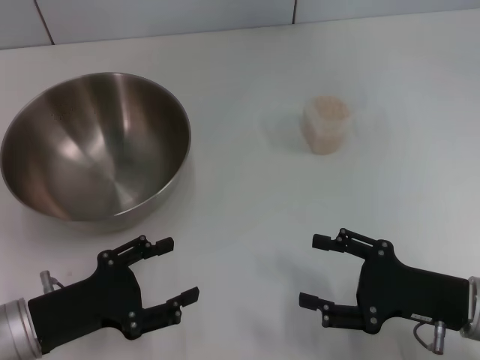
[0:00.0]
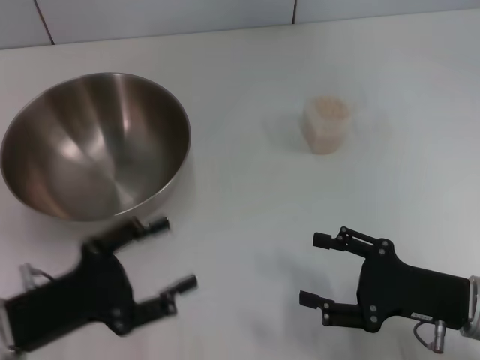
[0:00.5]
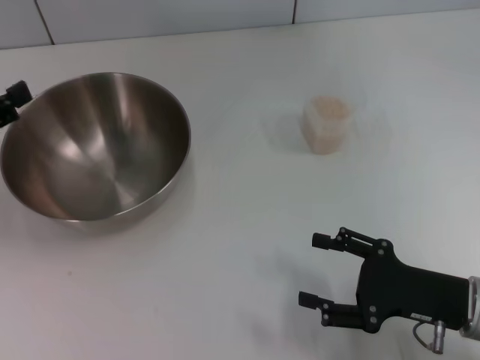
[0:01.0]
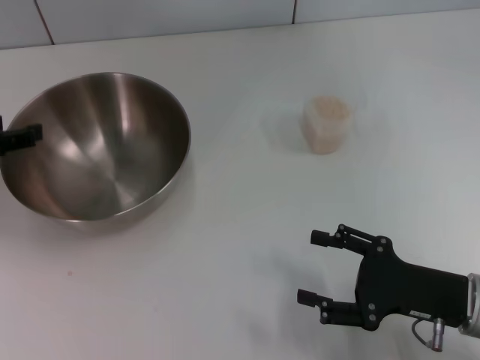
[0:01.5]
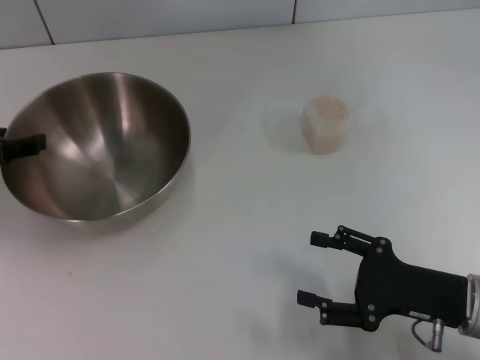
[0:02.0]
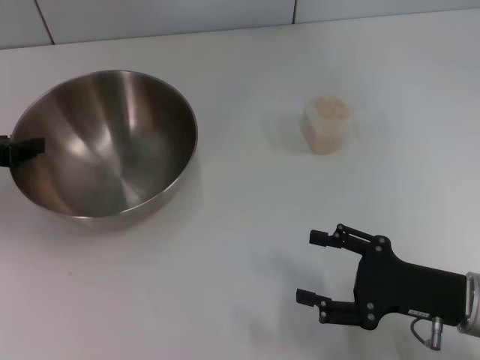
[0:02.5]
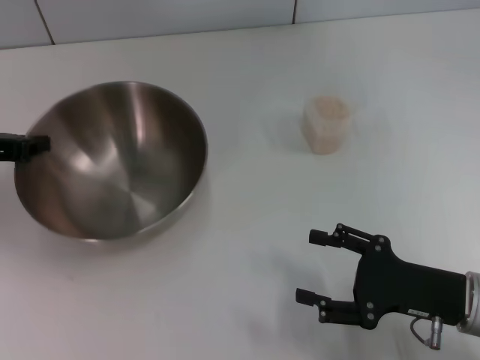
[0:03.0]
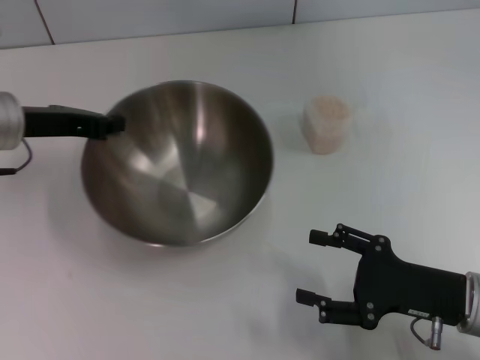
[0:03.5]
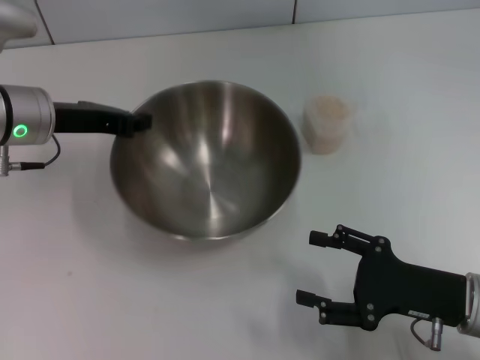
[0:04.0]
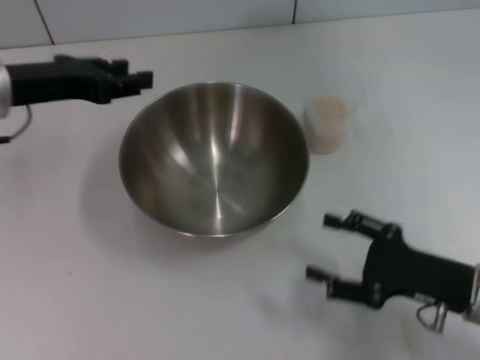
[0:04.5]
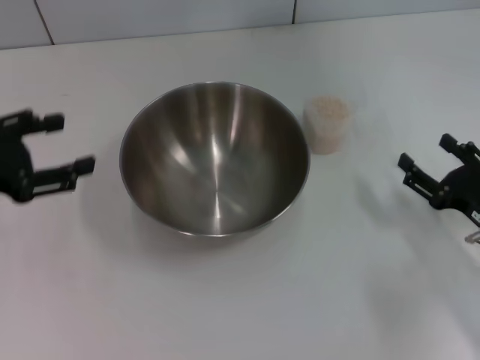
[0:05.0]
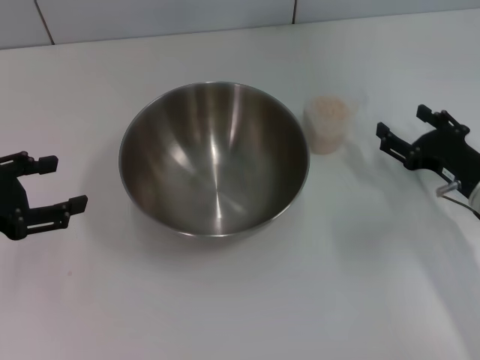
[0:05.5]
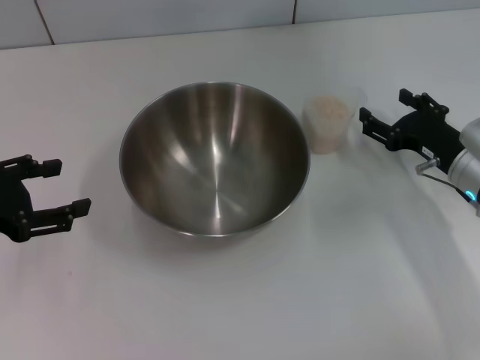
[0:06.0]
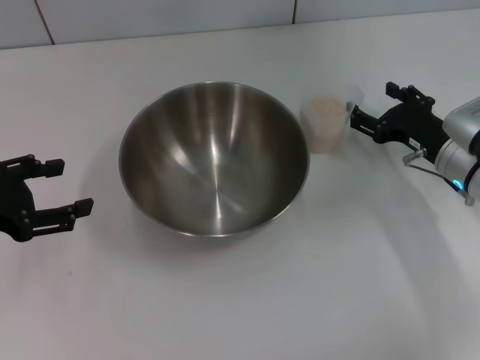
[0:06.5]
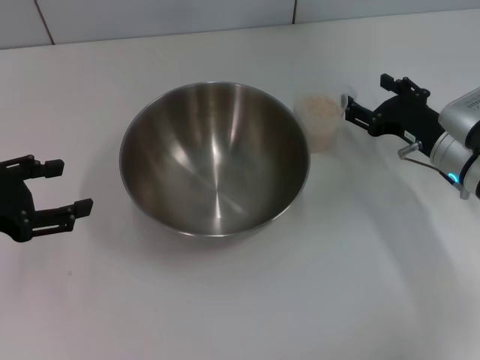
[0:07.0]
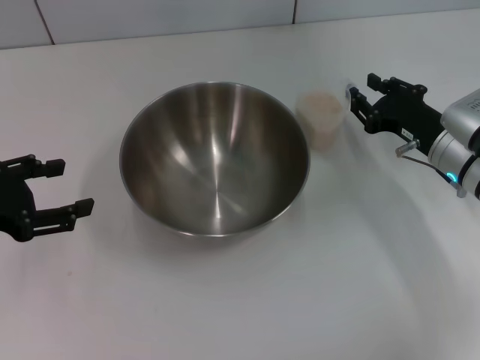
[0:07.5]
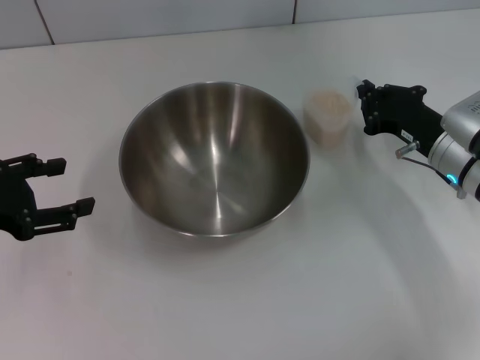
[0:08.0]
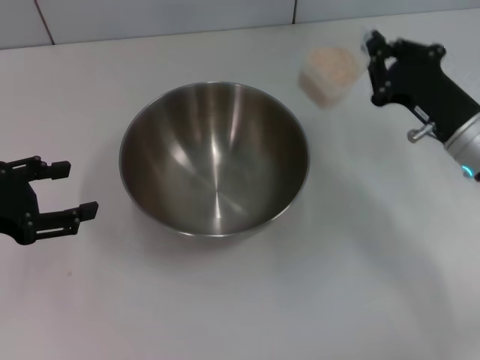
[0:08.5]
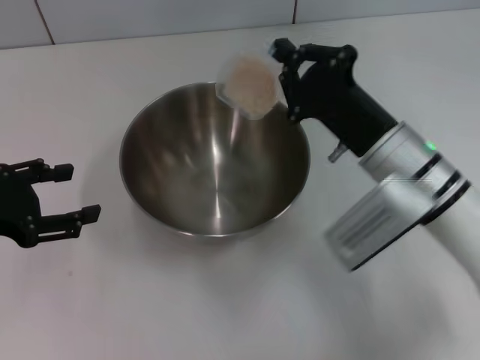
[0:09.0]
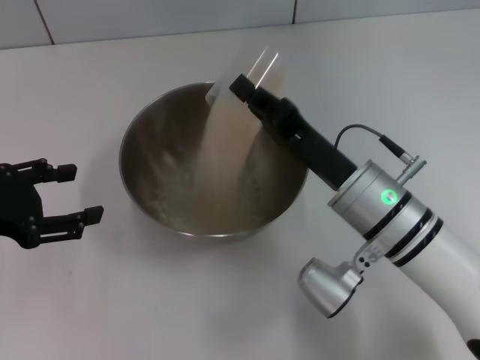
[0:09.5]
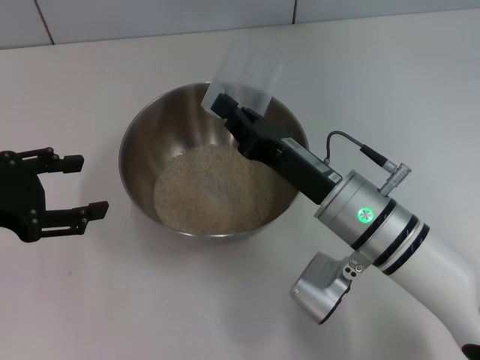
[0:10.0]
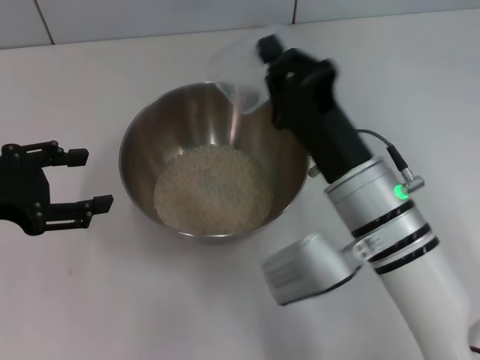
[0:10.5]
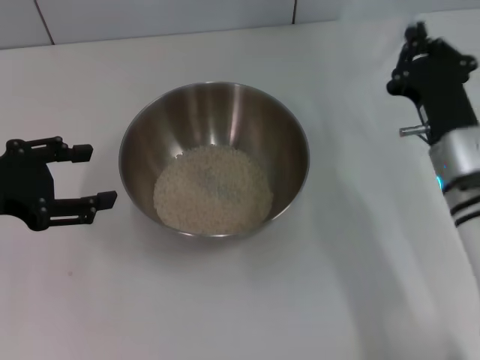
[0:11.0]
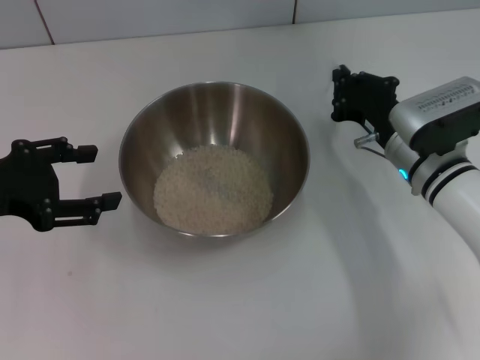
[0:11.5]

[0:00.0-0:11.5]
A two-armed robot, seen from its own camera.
Task of the whole recording: Place the bowl in the middle of the table with one hand and pour the rice from the grain cup into it with the other hand.
Step, 0:00.0 to 0:03.0: Pick up the bowl with the left gripper.
Step, 0:03.5 to 0:04.0: Place the bowl in the center of view with the left gripper.
Step, 0:04.5 to 0:08.0: Pick up the cup with rice in it with the right gripper.
Step, 0:09.0 to 0:10.5: Pour the rice from the cup into the bowl with the right gripper.
0:00.0 to 0:02.0: The left gripper is displaced forward, upward and to the left by some 20 cm.
0:02.0 to 0:04.0: The left gripper goes about 10 cm to the right and forward, and closes up.
0:04.0 to 0:06.0: The left gripper goes roughly 15 cm backward and to the left, and opens its fingers; the right gripper heads forward, covering about 10 cm.
0:06.0 to 0:07.5: The grippers move only a little.
0:07.5 to 0:09.5: The right gripper heads to the left and backward, covering approximately 15 cm, and closes its fingers.
0:09.5 to 0:11.5: The right gripper moves to the right and forward, some 10 cm.

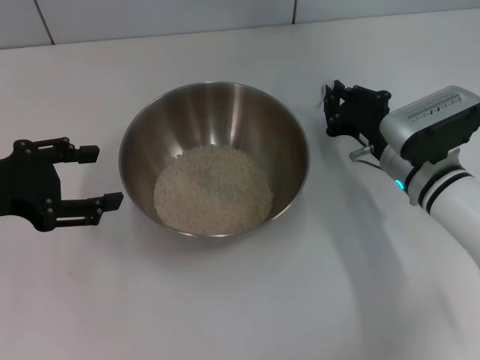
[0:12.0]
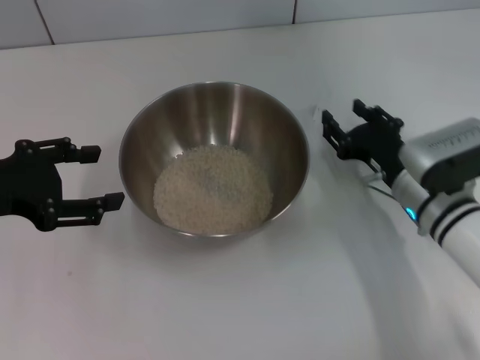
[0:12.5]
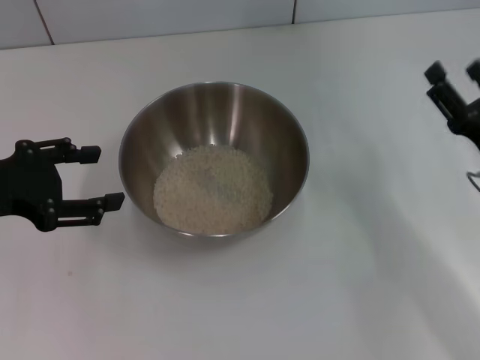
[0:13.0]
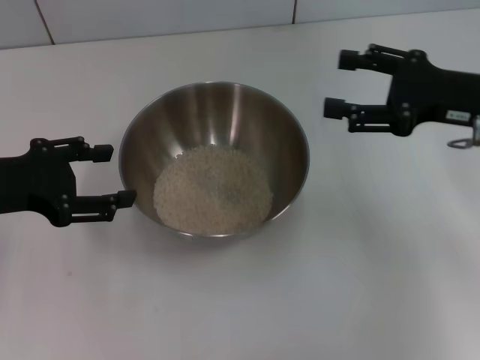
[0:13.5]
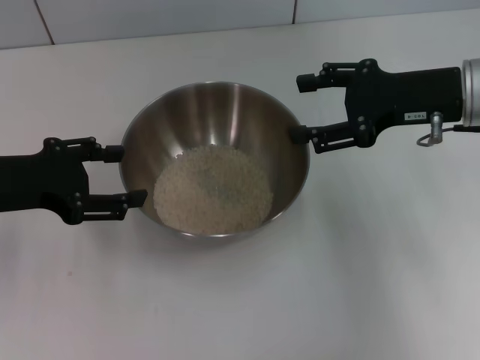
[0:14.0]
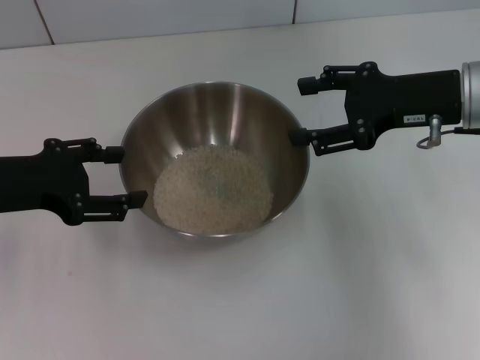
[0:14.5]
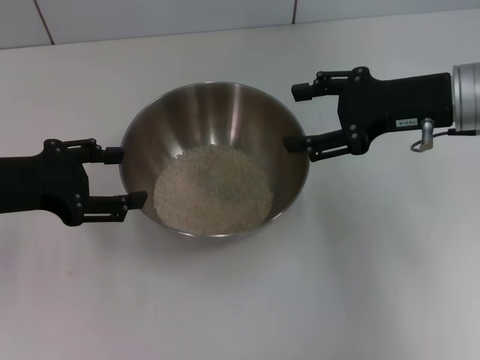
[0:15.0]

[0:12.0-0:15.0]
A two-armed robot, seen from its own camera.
Task of the whole recording: Place the bowl in the middle of the table with one hand and pour the rice from the grain cup into it with the other hand.
0:12.0 to 0:13.5: The right gripper goes roughly 15 cm upward and to the right, and opens its fingers.
0:13.5 to 0:15.0: The grippers stay close to where they were, moving slightly.
